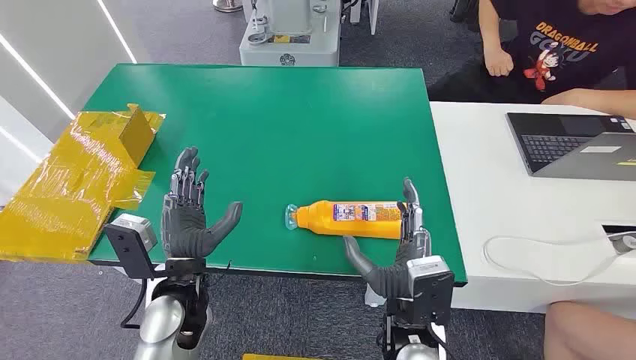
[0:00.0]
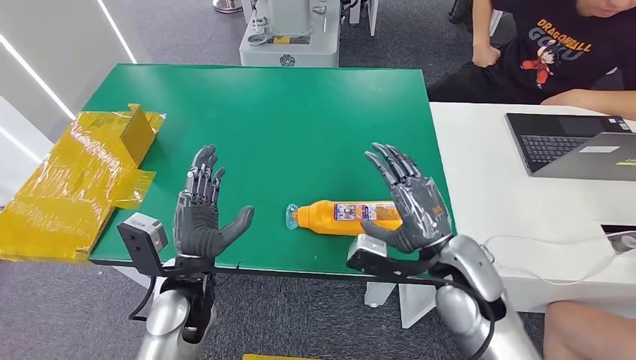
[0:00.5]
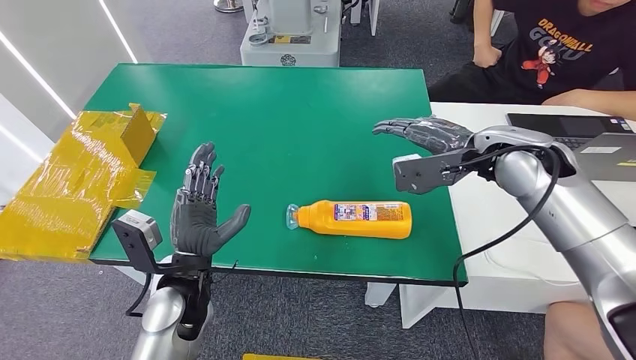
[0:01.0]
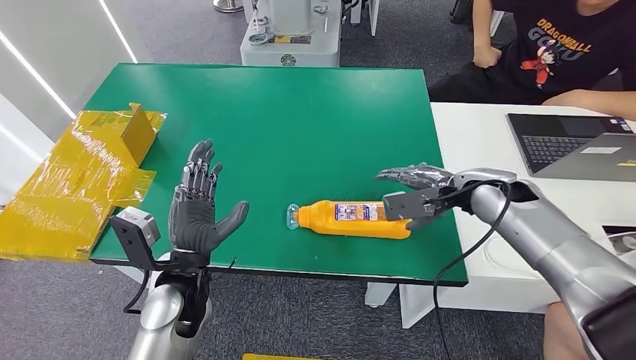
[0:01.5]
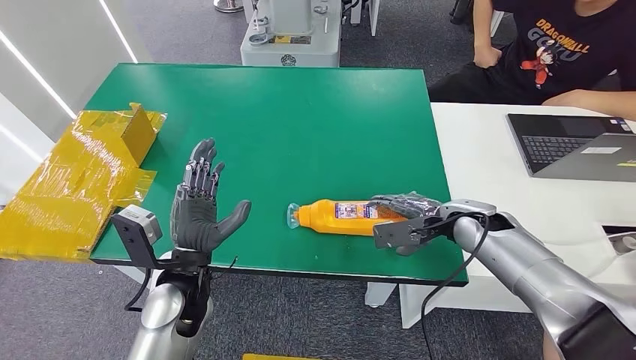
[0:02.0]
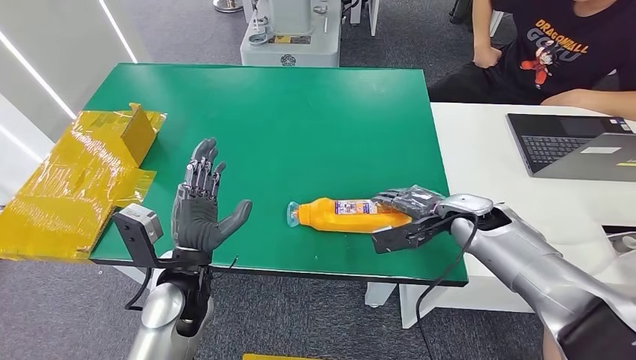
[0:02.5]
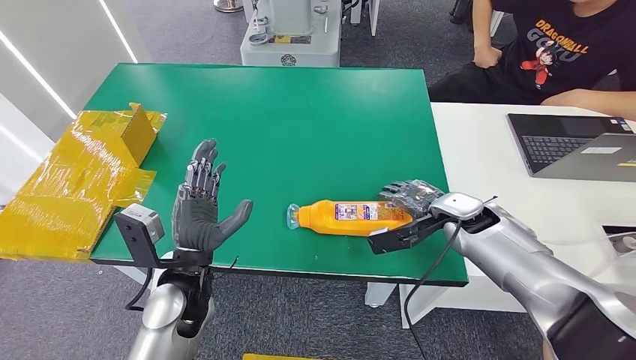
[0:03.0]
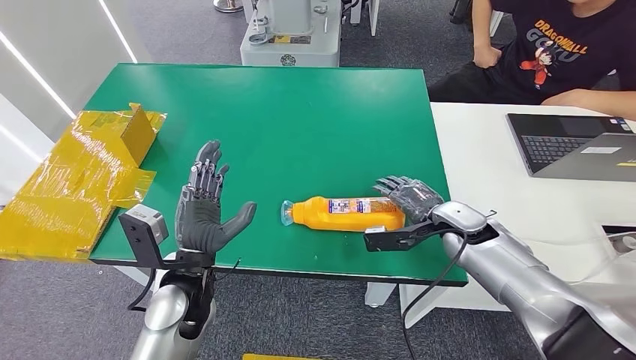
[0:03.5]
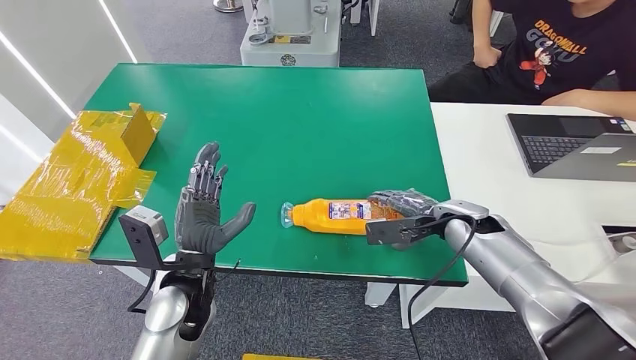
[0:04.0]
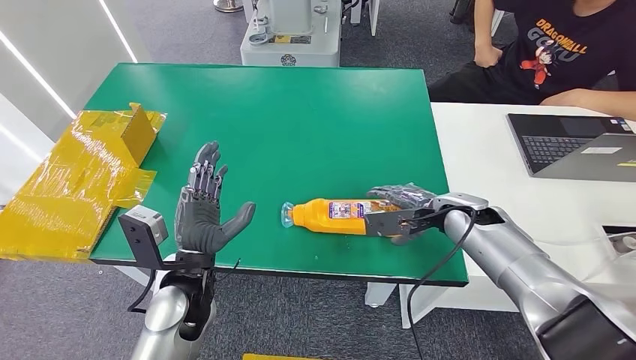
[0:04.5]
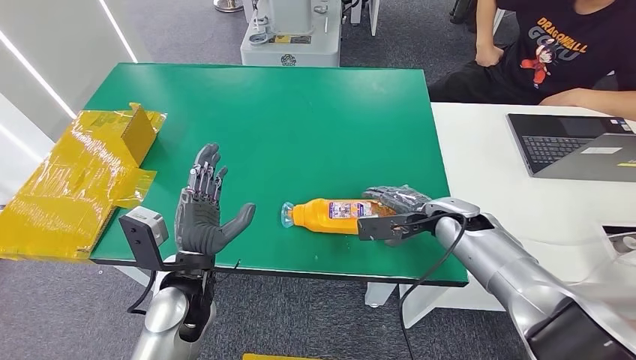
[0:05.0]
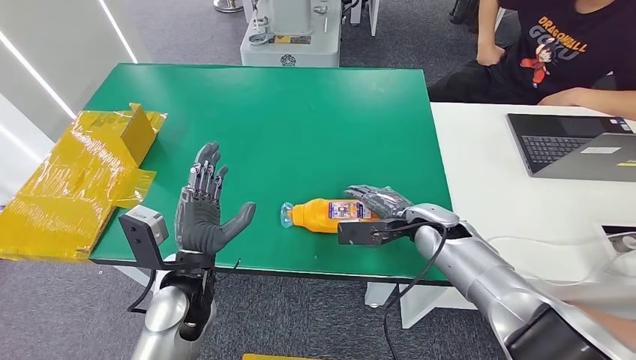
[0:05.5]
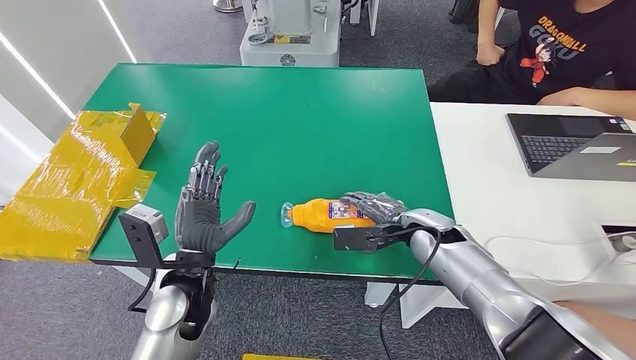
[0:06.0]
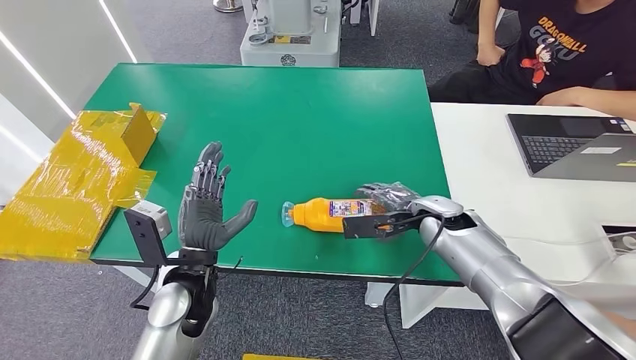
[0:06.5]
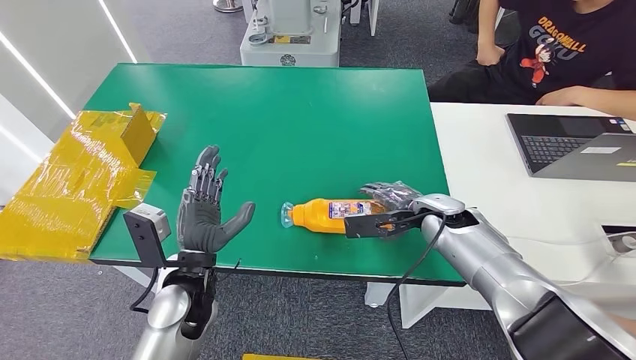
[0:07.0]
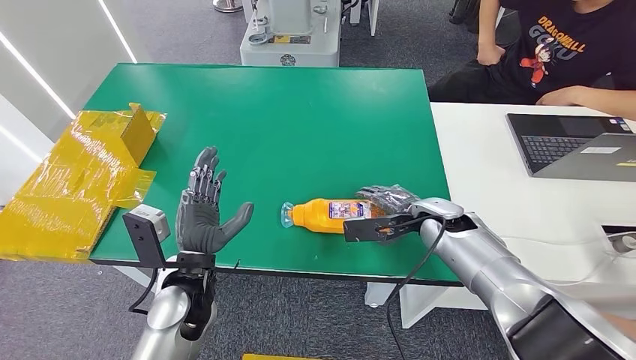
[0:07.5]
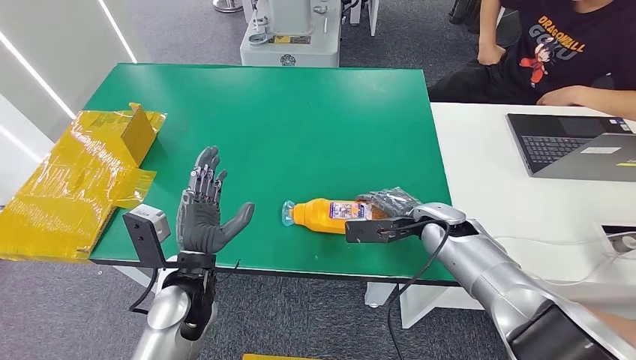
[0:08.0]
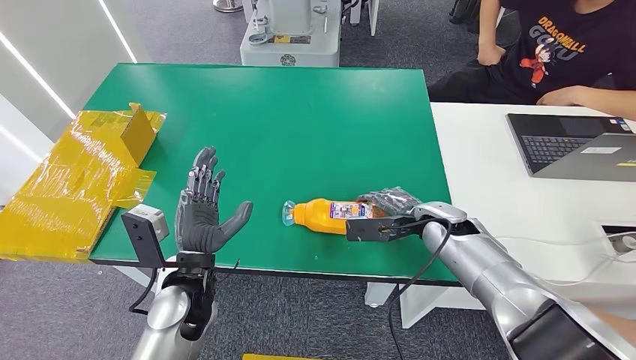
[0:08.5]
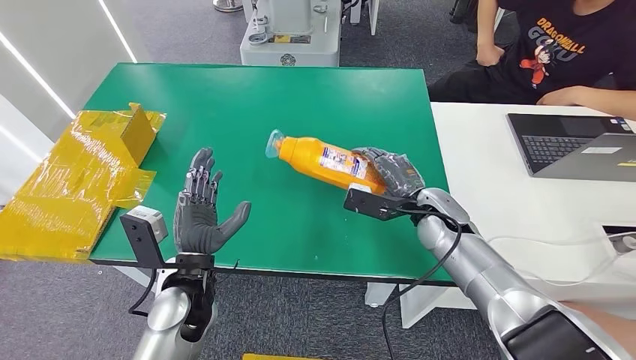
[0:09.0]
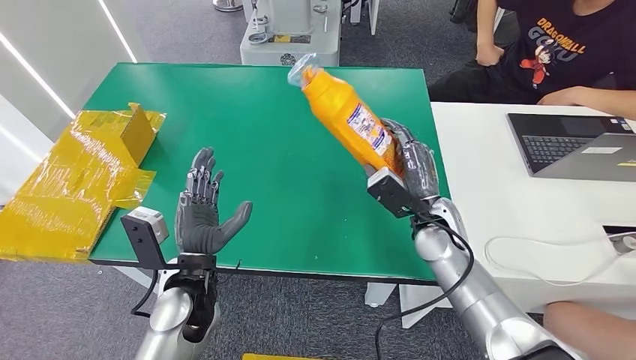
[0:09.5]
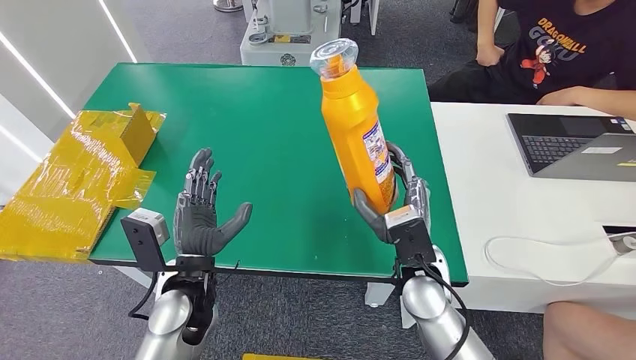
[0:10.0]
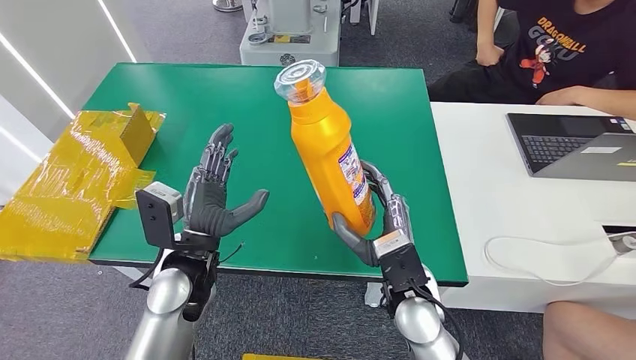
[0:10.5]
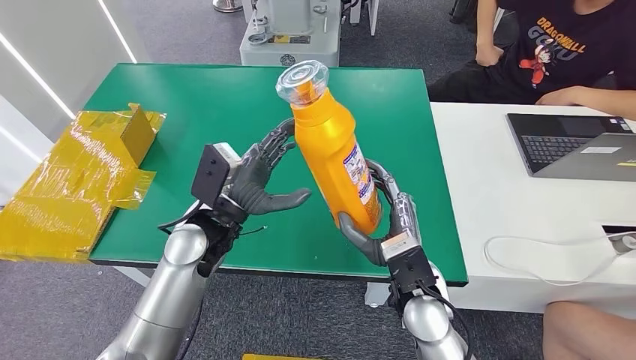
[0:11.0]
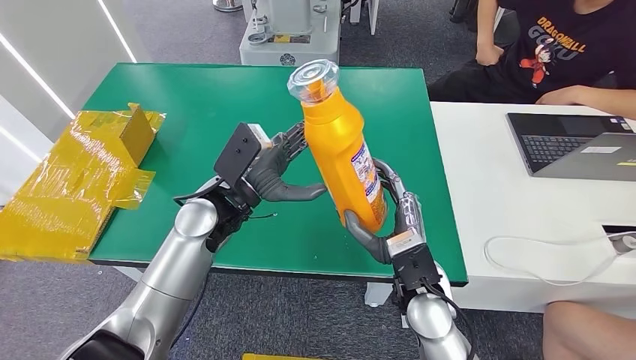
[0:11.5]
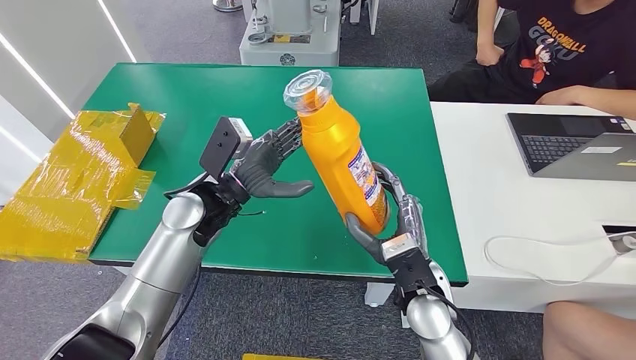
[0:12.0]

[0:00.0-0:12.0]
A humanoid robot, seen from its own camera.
Step, 0:00.0 to 0:09.5: Pick up the bottle from the table.
0:04.0 to 0:06.0: The right hand goes roughly 5 cm to the left.
0:06.0 to 0:08.0: The hands move only a little.
0:08.0 to 0:10.0: The right hand shifts roughly 15 cm backward and to the left.
0:10.0 to 0:12.0: The left hand travels forward and upward by approximately 15 cm.

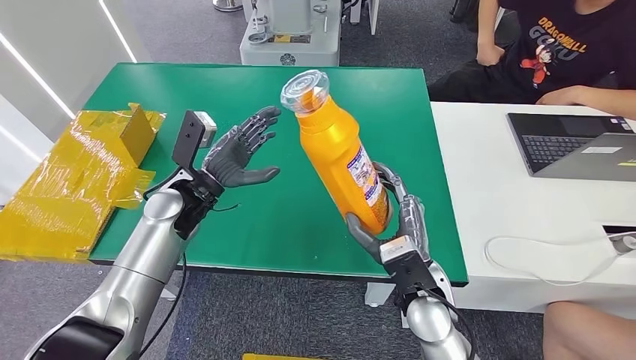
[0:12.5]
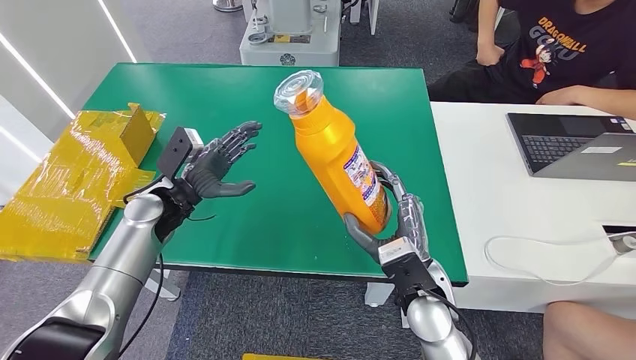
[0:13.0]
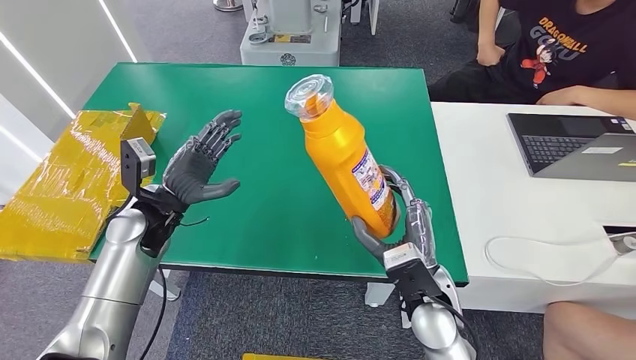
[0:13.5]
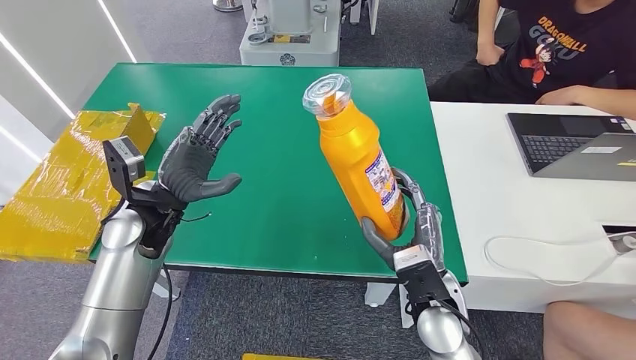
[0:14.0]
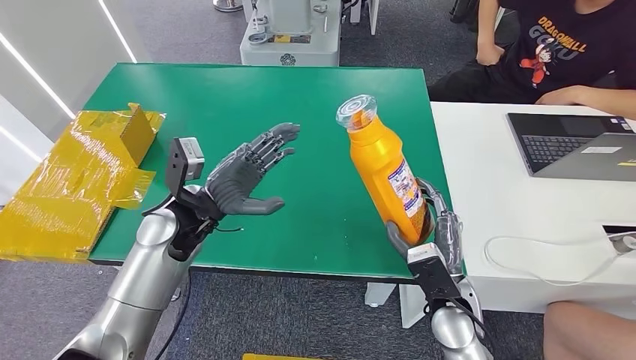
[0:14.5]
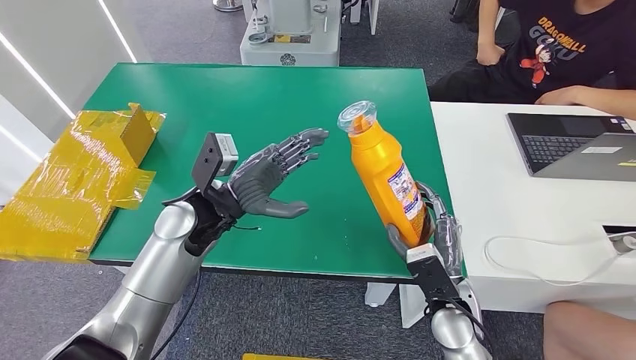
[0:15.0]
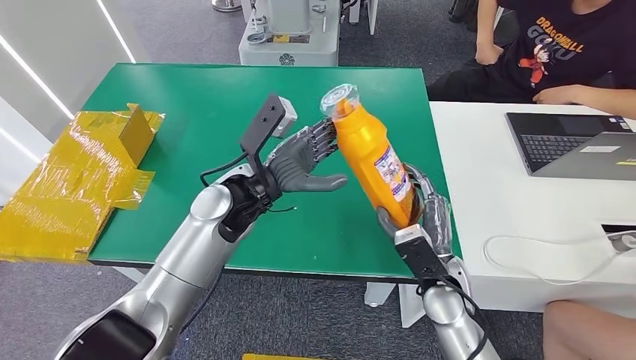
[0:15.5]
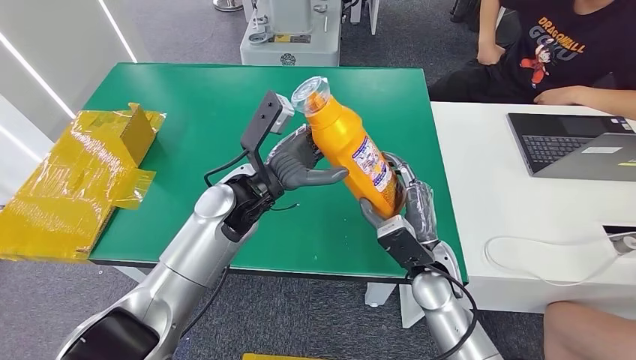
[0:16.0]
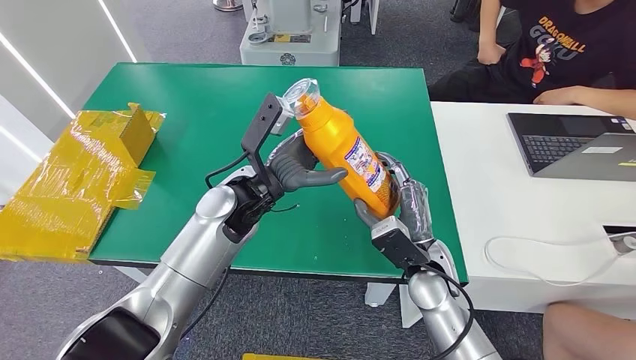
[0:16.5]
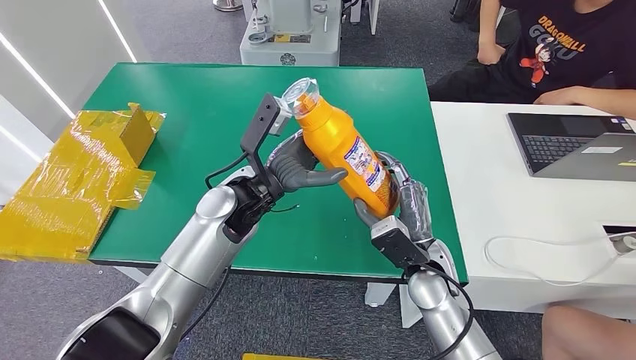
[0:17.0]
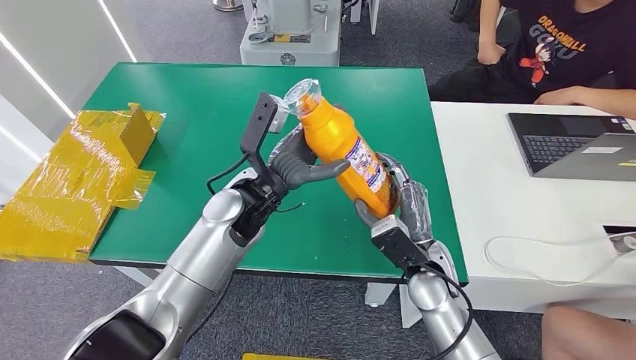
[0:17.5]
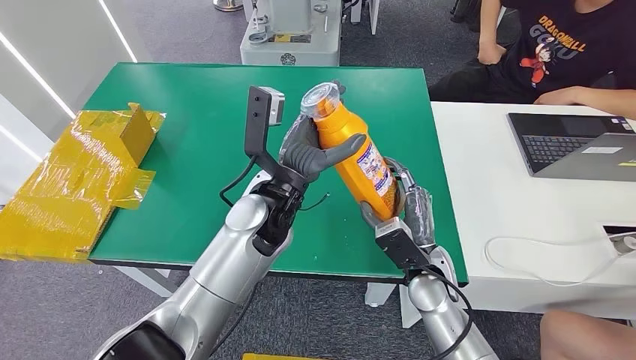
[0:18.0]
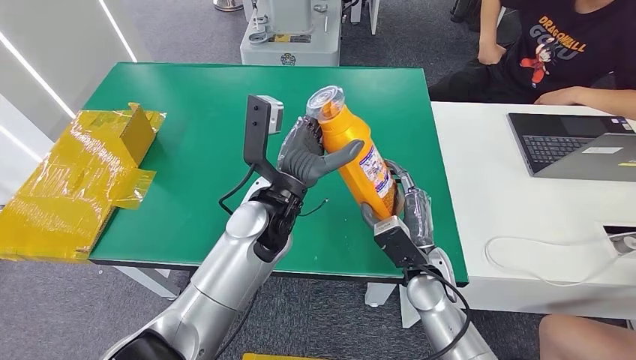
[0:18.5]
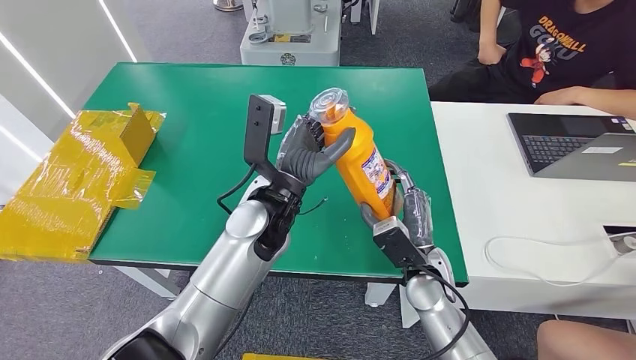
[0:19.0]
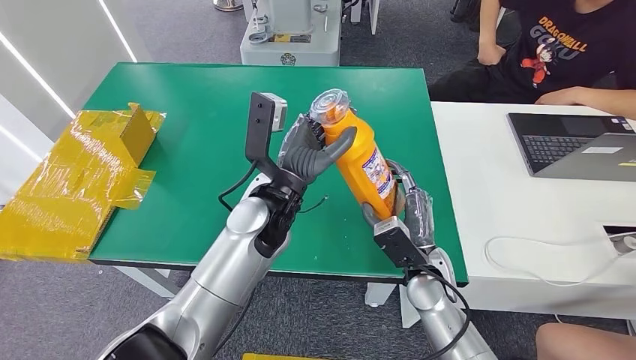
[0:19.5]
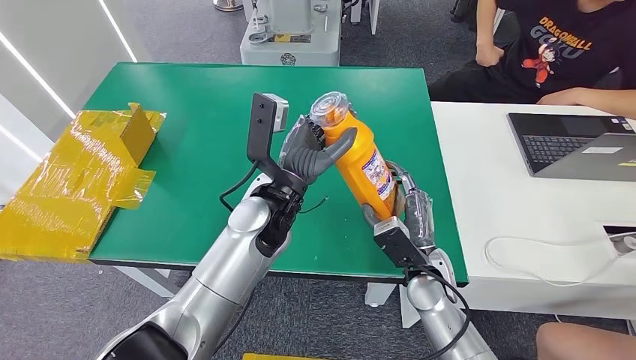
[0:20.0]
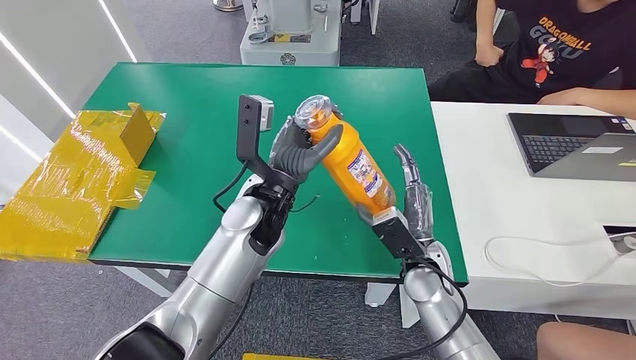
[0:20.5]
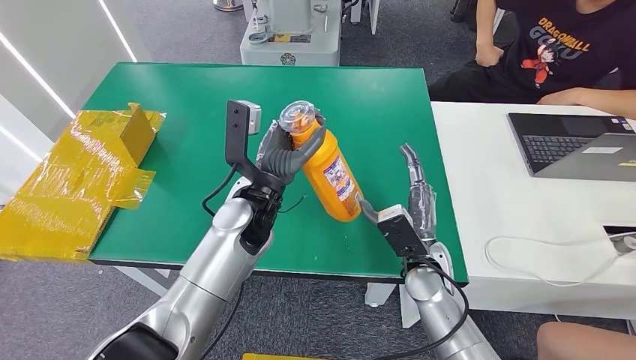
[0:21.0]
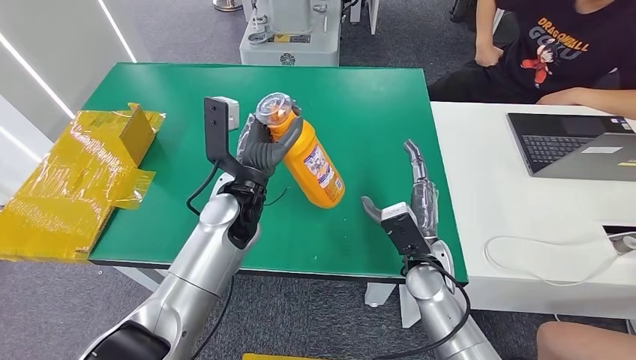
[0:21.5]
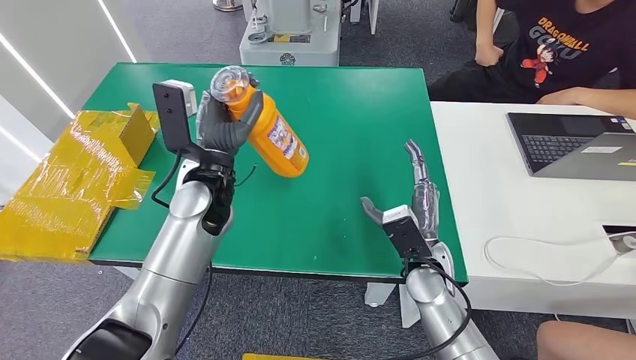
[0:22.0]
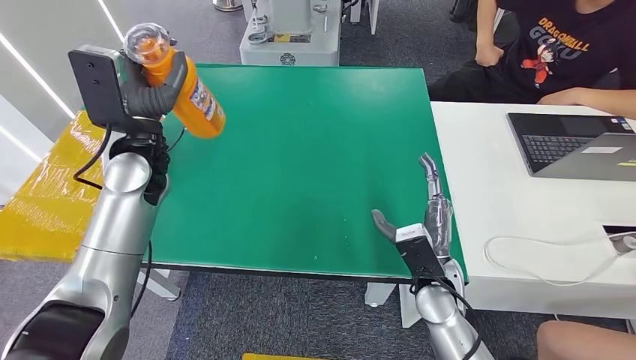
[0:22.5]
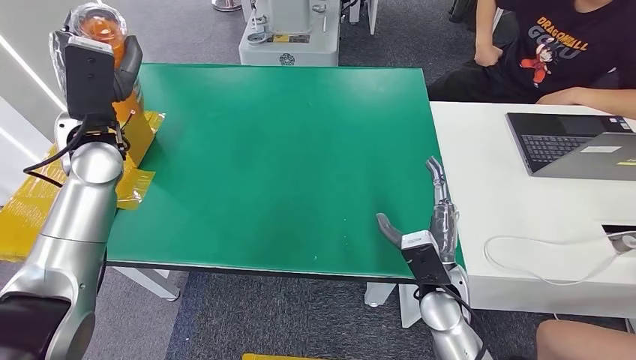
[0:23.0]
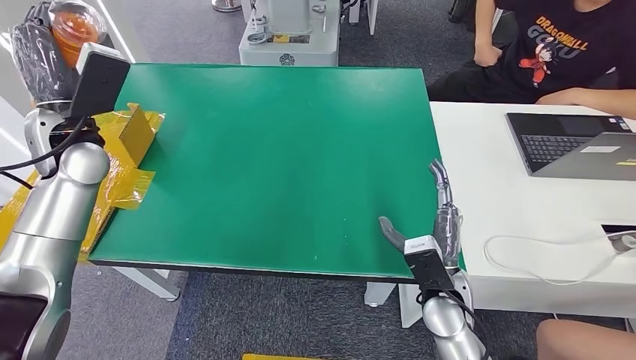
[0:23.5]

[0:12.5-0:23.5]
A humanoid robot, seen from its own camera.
0:12.5 to 0:14.5: The right hand is displaced to the right by about 5 cm. The left hand reaches about 5 cm to the left, then returns.
0:14.5 to 0:16.0: The right hand changes place by some 5 cm. Meanwhile the left hand goes roughly 10 cm to the right.
0:16.0 to 0:18.0: The left hand travels to the right by some 5 cm.
0:18.0 to 0:20.0: The two hands keep their place.
0:20.0 to 0:21.5: The left hand shifts some 5 cm to the left.
